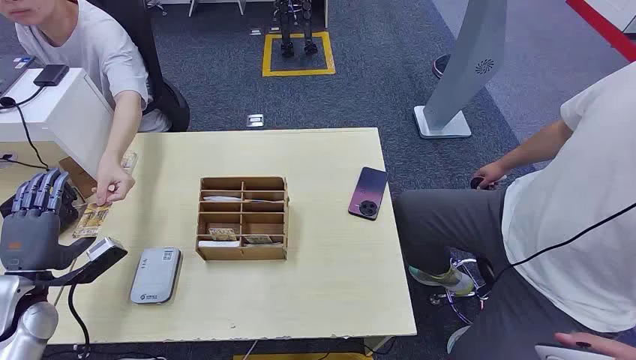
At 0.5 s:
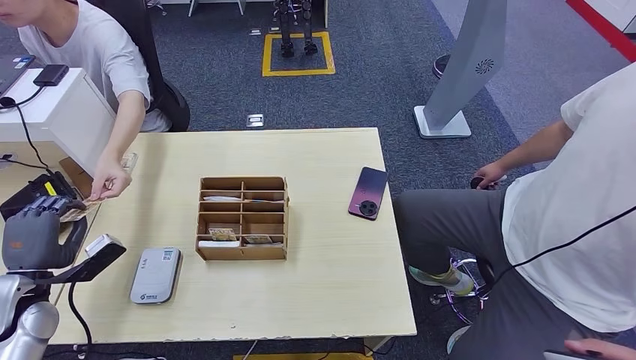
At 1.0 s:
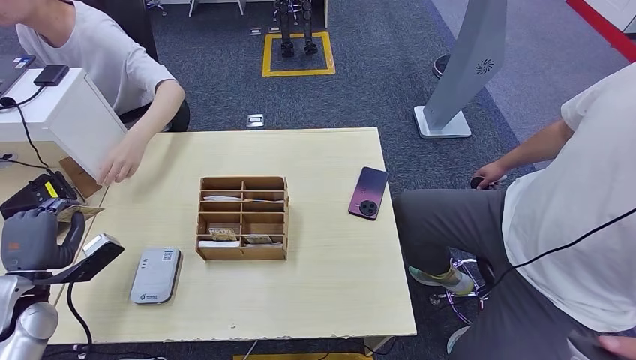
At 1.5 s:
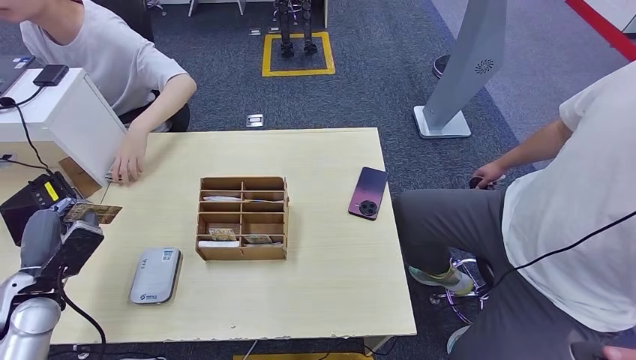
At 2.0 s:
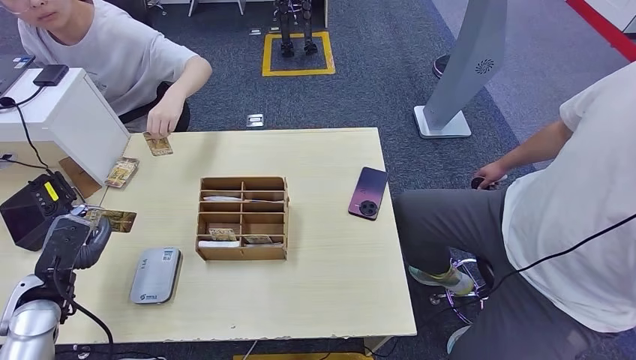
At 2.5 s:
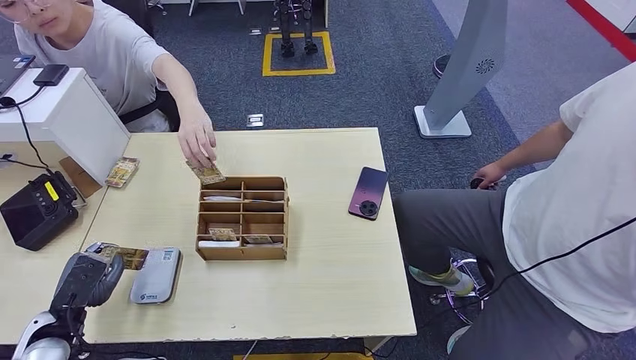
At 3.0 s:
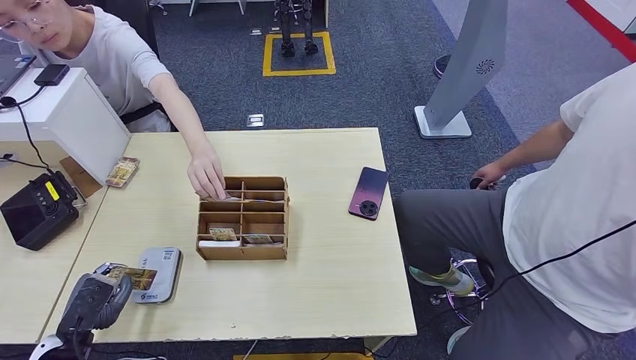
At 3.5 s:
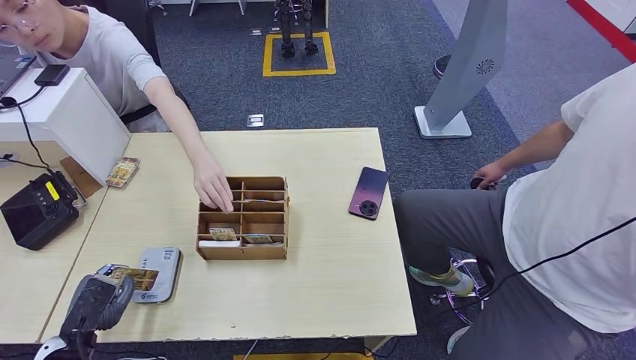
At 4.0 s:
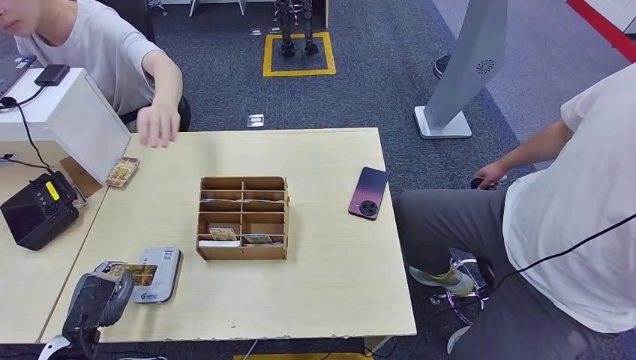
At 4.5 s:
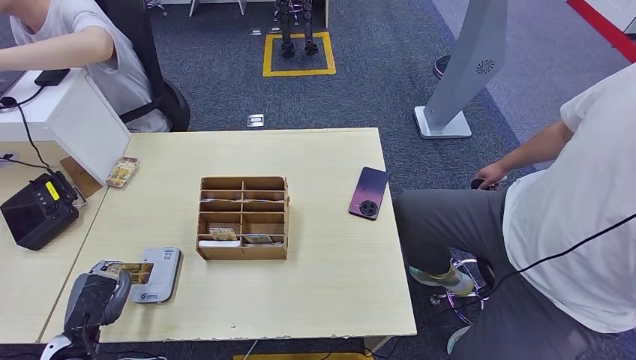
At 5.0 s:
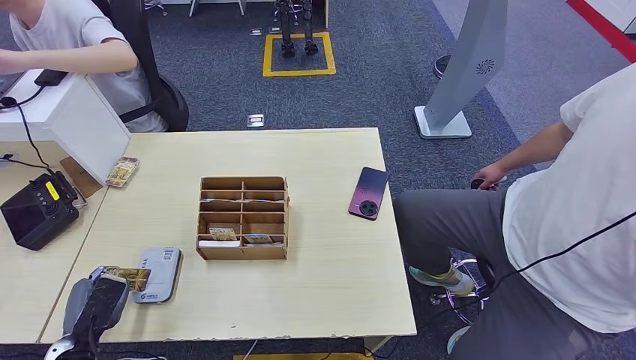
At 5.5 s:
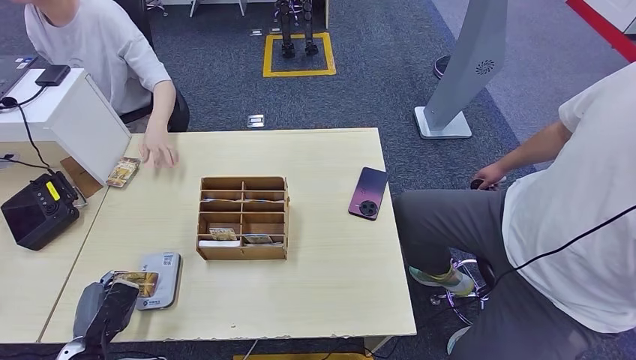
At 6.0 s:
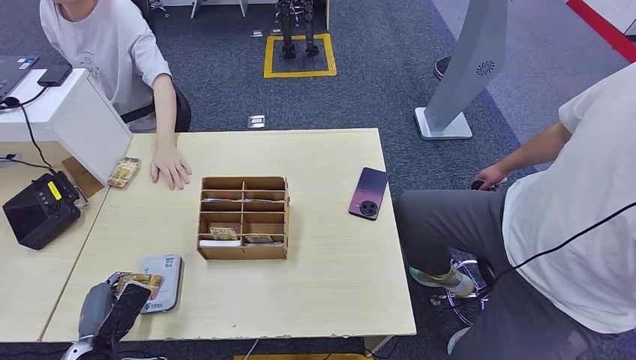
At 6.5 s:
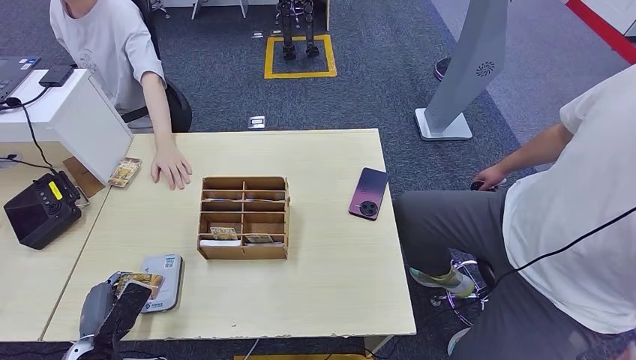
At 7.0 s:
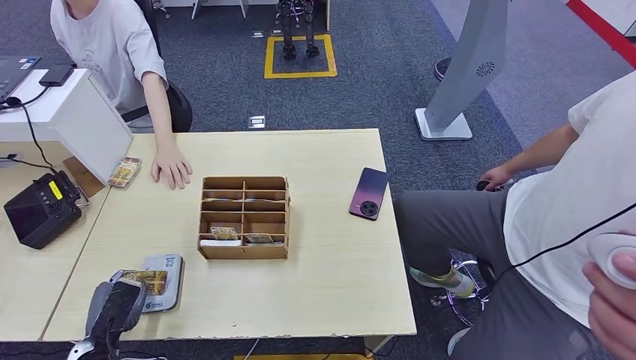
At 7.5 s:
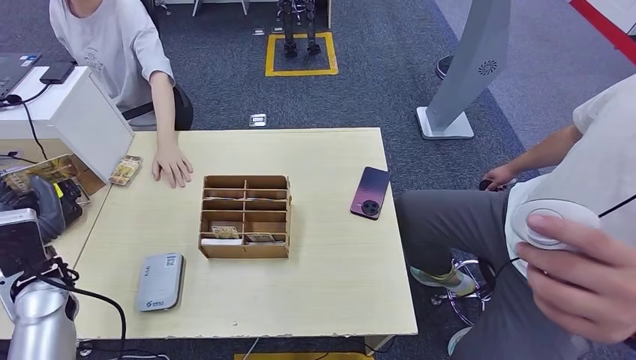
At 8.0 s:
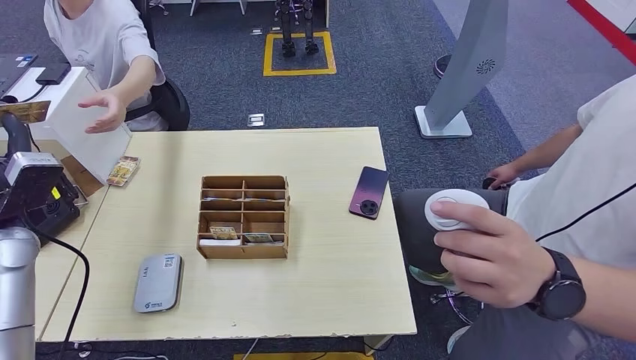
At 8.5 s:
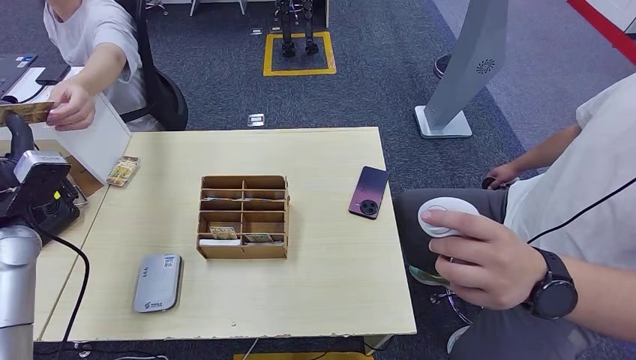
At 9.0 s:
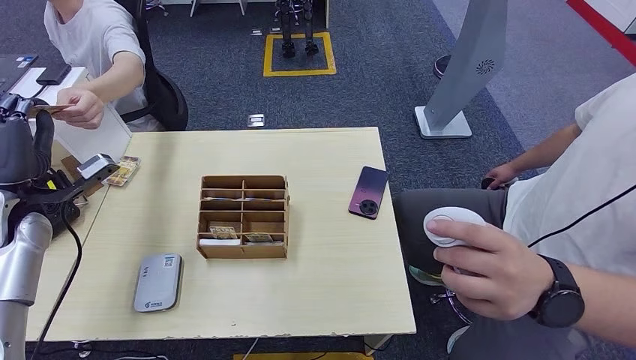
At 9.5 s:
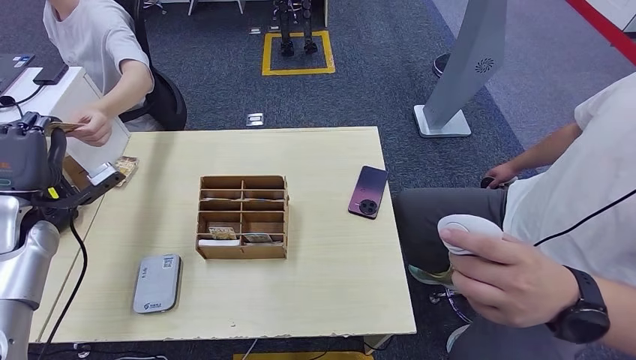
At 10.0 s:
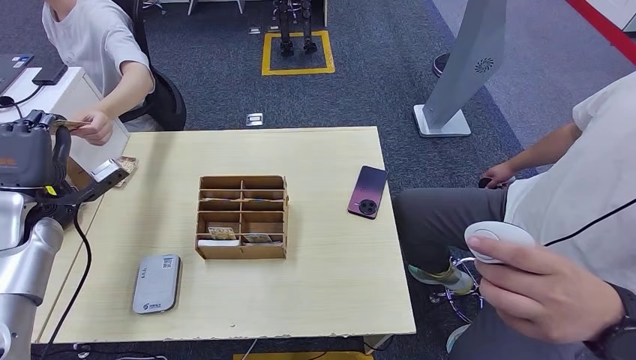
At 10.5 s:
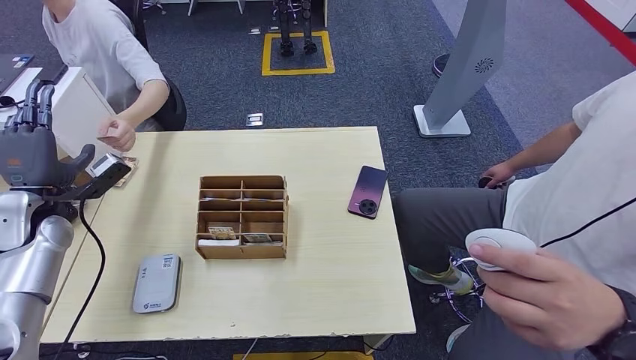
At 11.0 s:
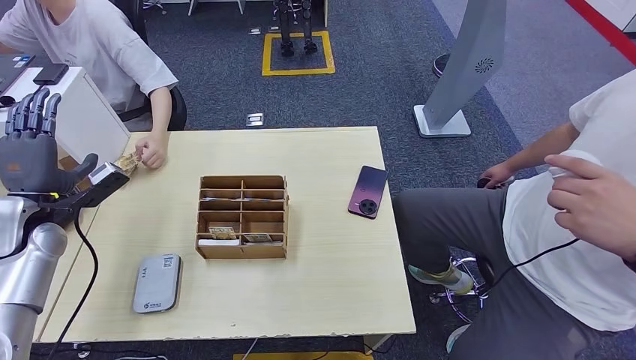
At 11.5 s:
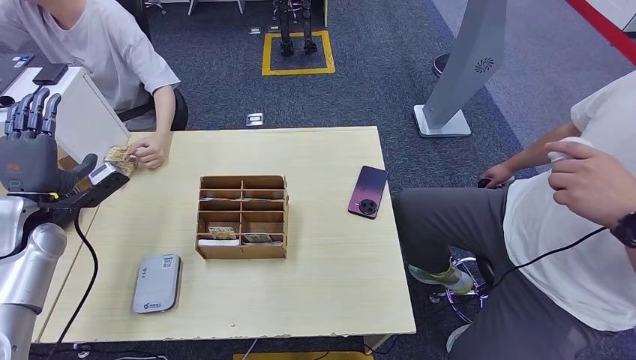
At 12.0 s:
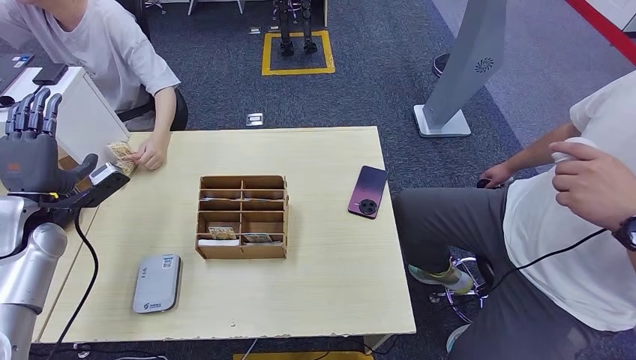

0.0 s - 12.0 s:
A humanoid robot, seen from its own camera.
Step, 0.0 s - 0.5 s: Take the ID card from the person's hand.
Step, 1.5 s - 7.0 s: Place the ID card on the card reader.
Step, 7.5 s - 11.0 s: Hand the ID card to the person.
2.0 s - 4.0 s: The left hand moves backward and downward, approximately 10 cm.
4.0 s - 6.0 s: The hands move only a little.
6.0 s - 8.0 s: The left hand heads upward and forward, covering some 30 cm.
8.0 s - 10.0 s: The left hand changes place by about 5 cm.
10.0 s - 12.0 s: The hands make only small movements.

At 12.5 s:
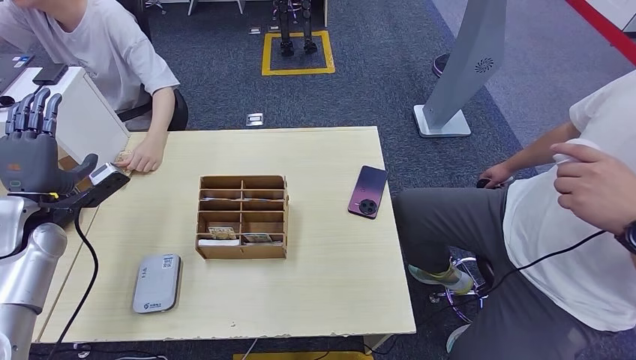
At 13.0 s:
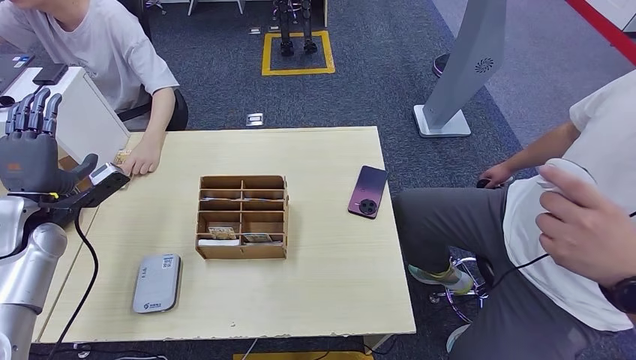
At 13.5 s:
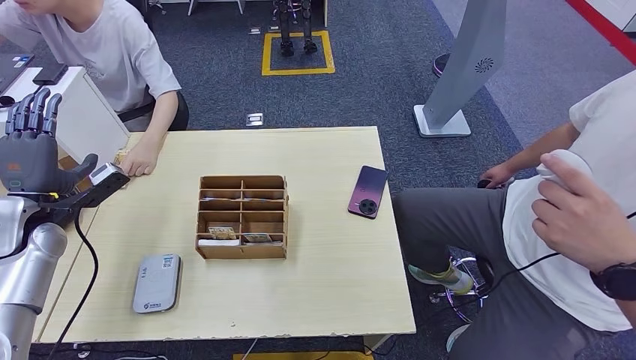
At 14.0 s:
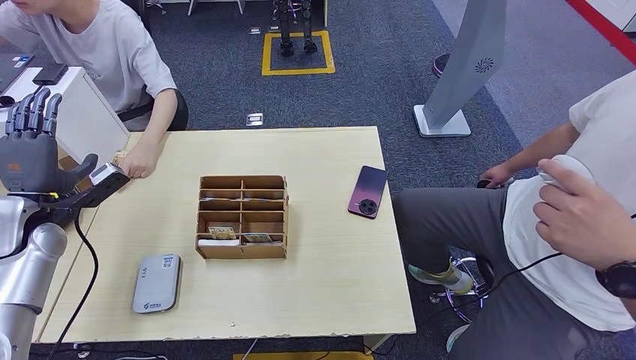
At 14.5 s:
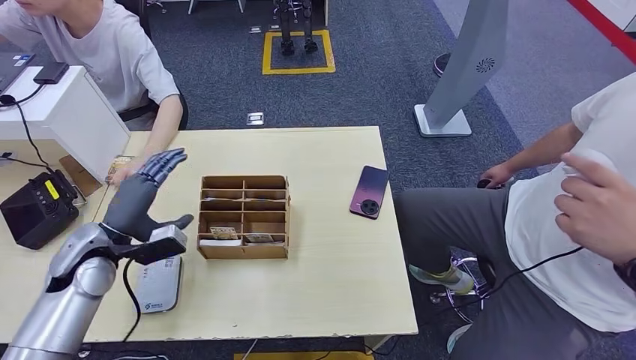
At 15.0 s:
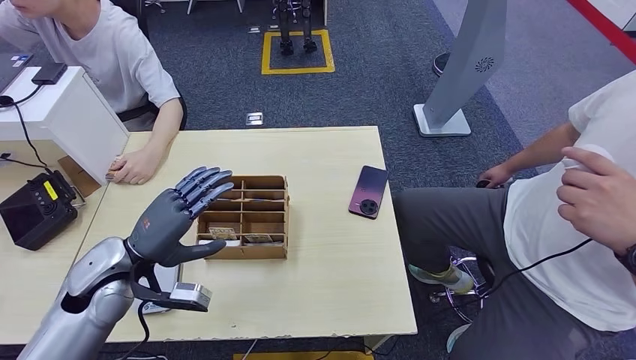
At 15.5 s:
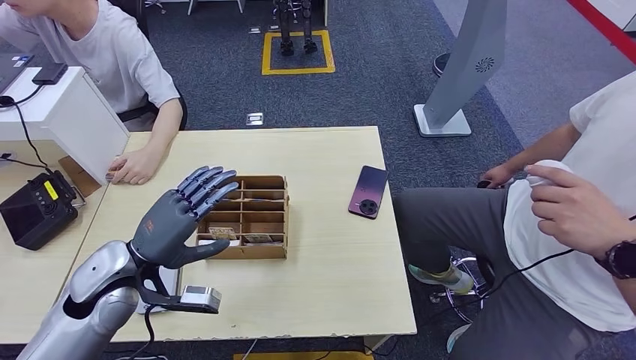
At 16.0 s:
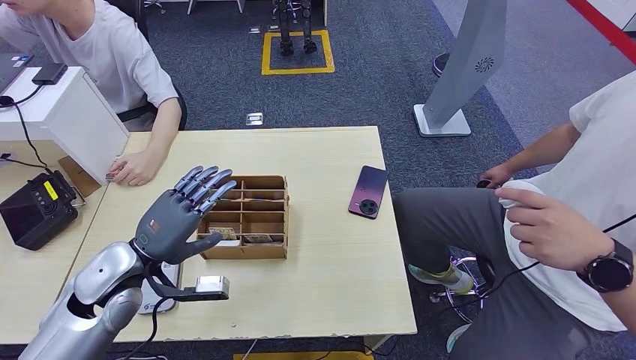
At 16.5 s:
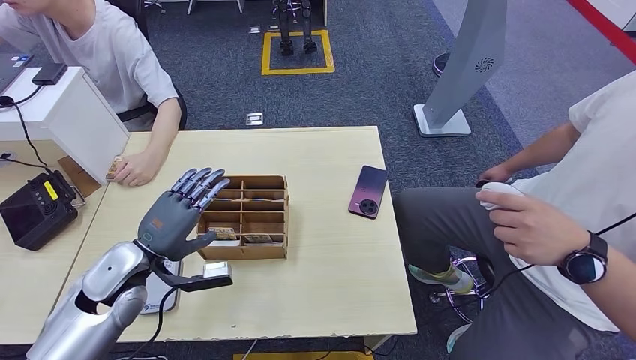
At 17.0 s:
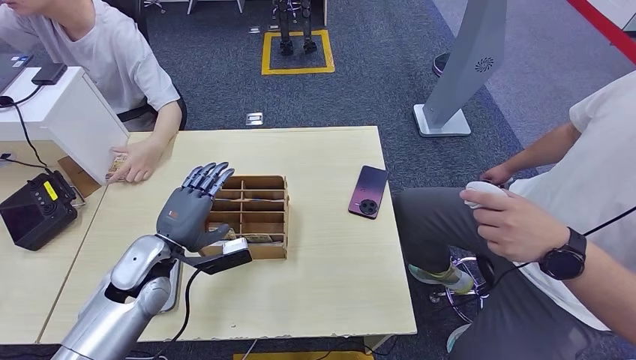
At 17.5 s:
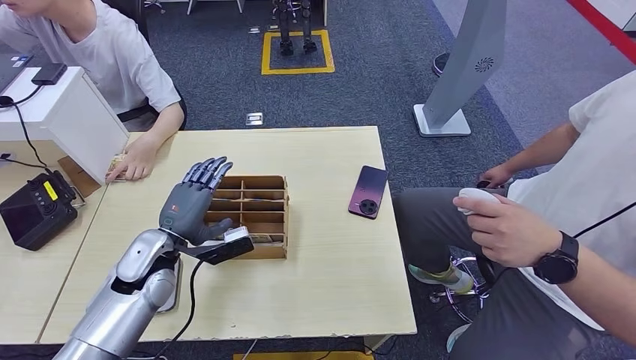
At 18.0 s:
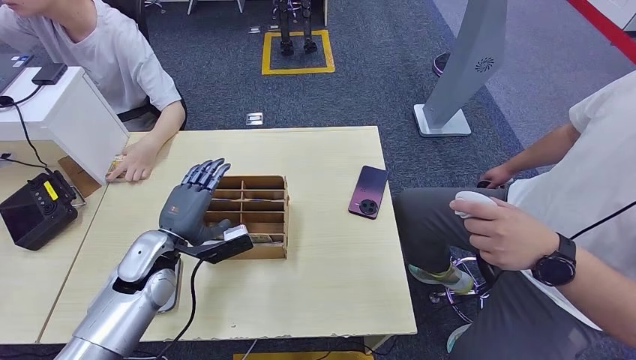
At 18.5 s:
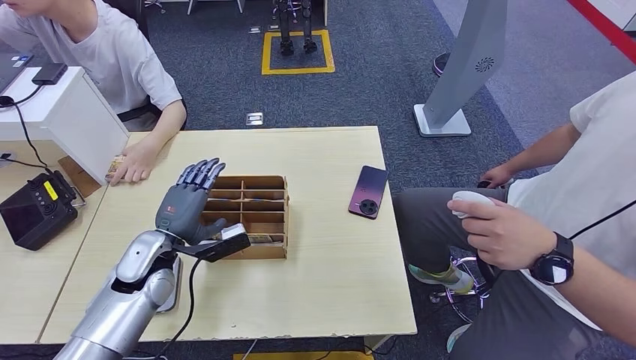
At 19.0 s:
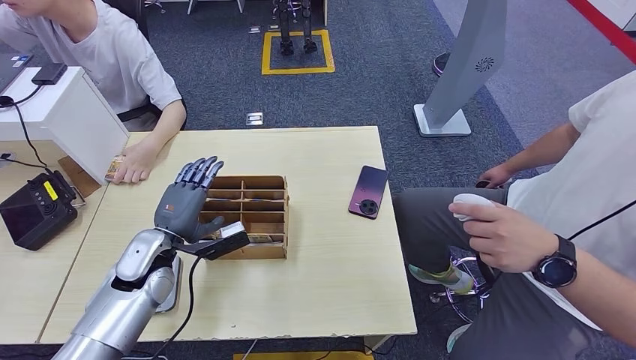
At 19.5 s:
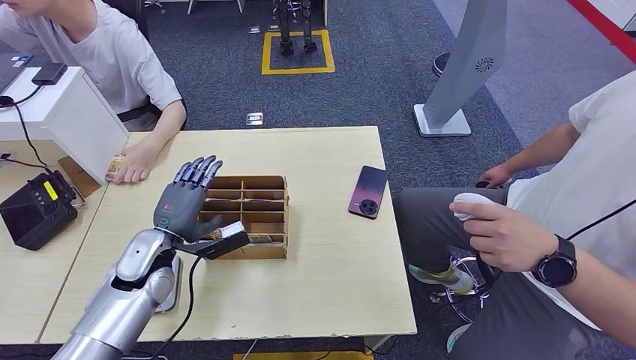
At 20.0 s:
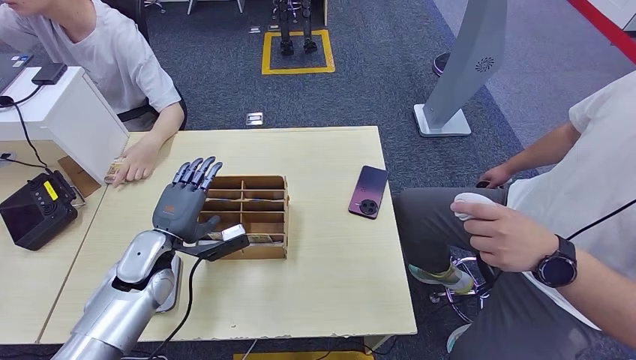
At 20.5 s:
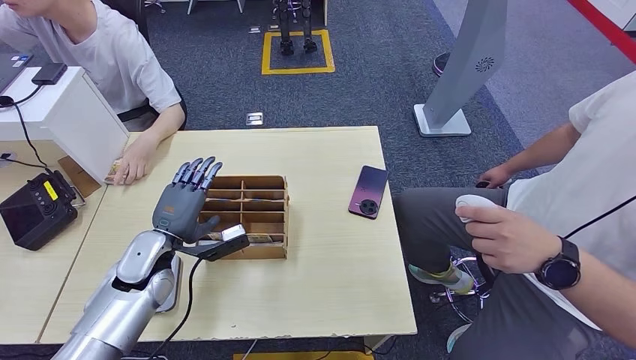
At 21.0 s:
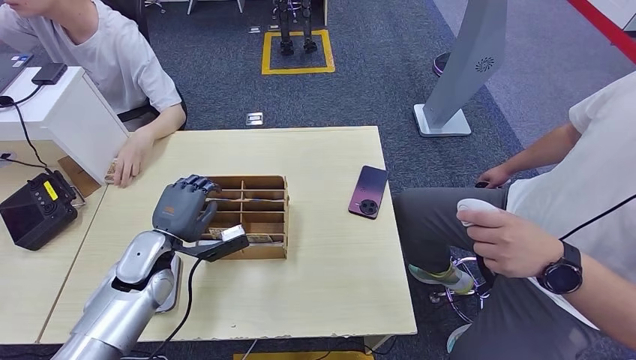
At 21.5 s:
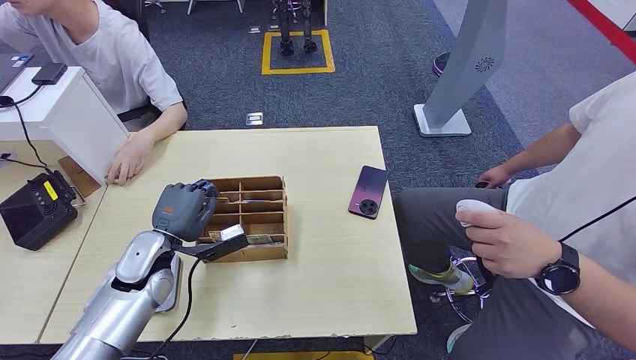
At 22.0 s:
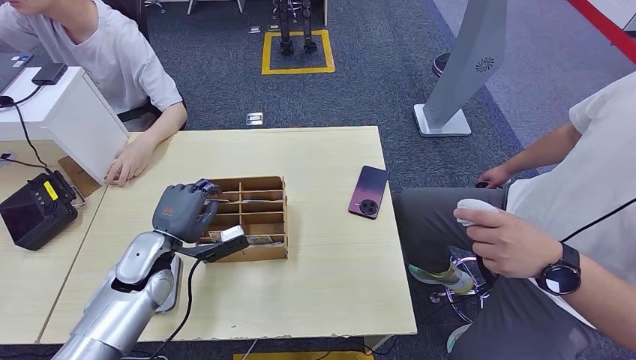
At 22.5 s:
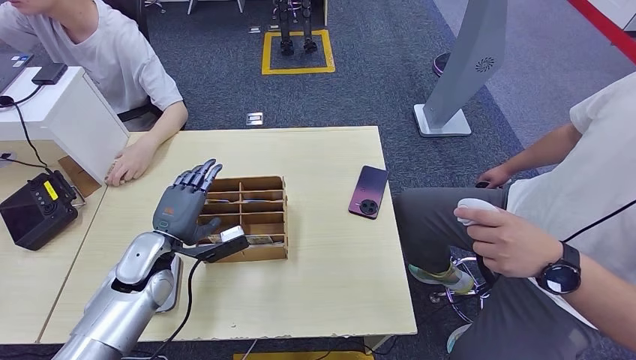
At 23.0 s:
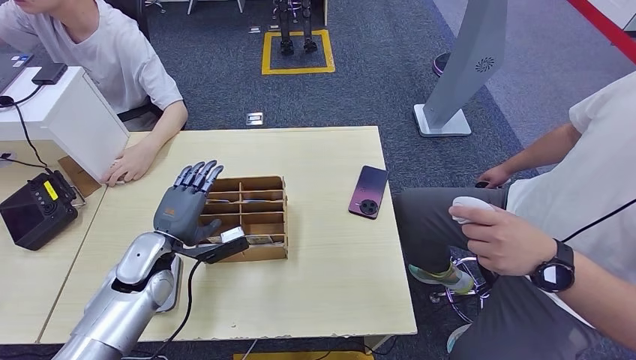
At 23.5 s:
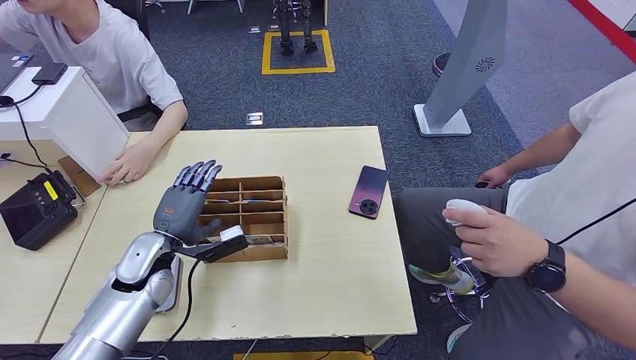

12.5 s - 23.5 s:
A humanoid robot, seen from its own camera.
12.5 s - 14.5 s: The left hand goes about 10 cm to the right.
14.5 s - 16.0 s: The left hand heads to the right, covering some 10 cm.
16.0 s - 18.0 s: The left hand changes place by about 5 cm.
18.0 s - 20.0 s: The hands move only a little.
20.0 s - 23.5 s: The two hands keep their place.
